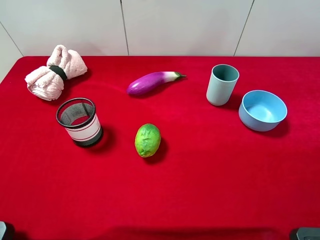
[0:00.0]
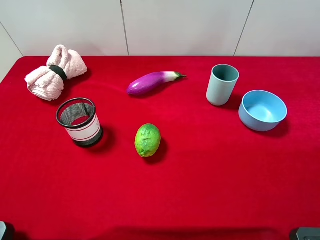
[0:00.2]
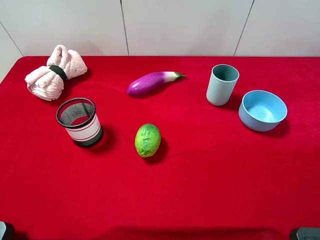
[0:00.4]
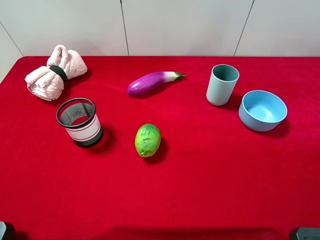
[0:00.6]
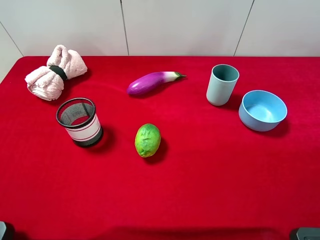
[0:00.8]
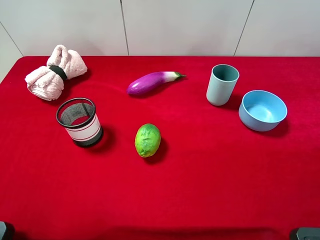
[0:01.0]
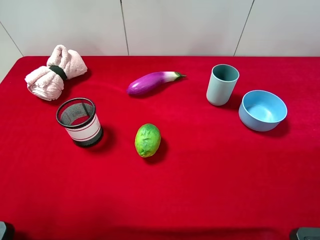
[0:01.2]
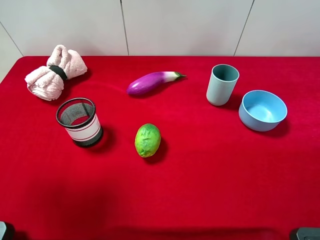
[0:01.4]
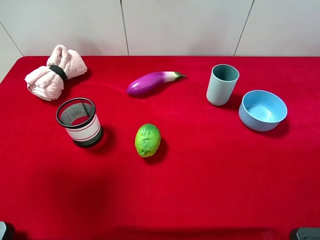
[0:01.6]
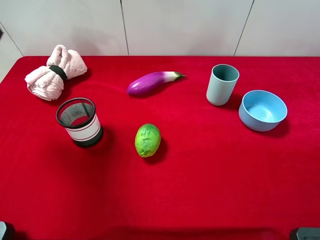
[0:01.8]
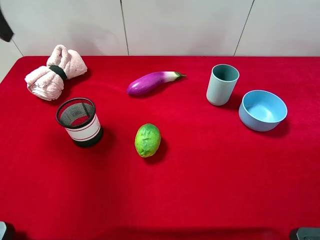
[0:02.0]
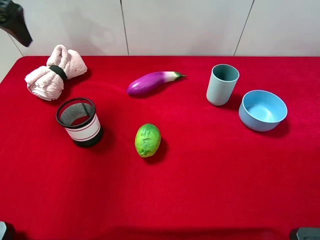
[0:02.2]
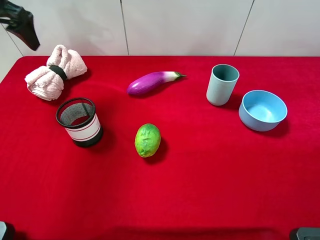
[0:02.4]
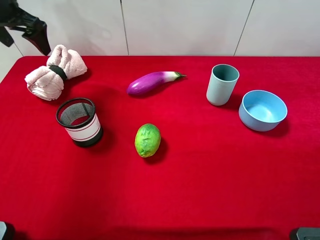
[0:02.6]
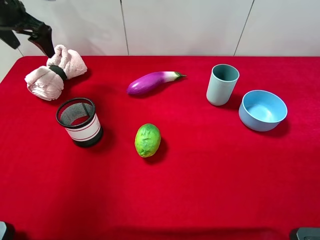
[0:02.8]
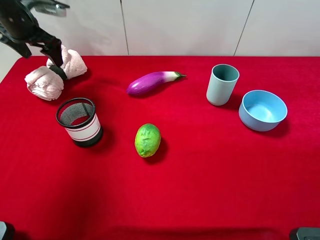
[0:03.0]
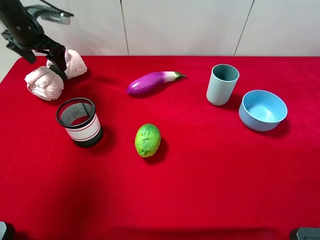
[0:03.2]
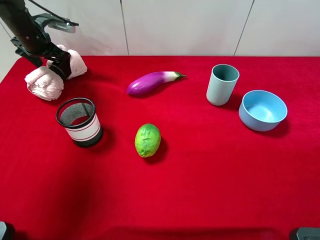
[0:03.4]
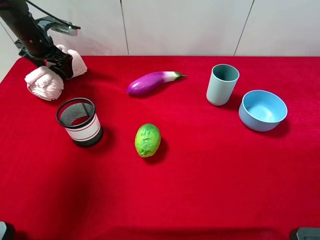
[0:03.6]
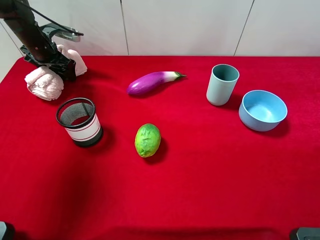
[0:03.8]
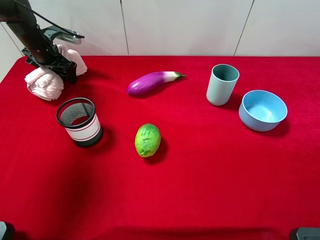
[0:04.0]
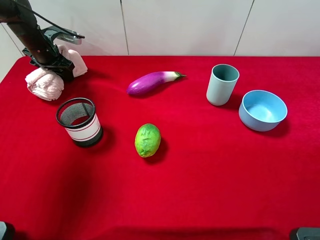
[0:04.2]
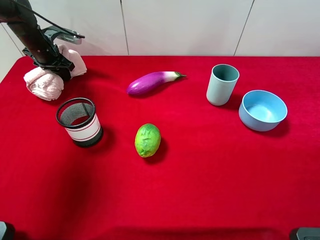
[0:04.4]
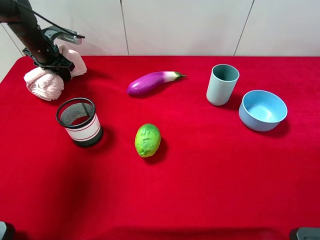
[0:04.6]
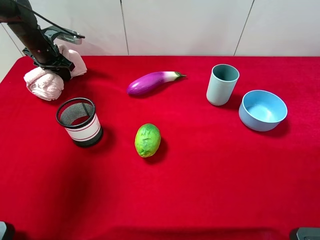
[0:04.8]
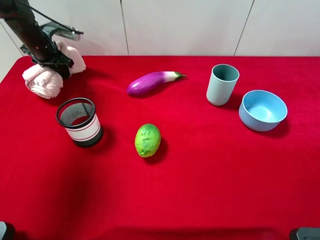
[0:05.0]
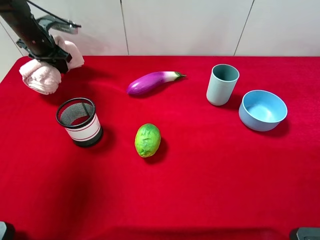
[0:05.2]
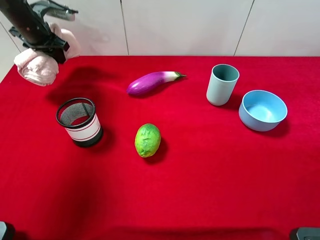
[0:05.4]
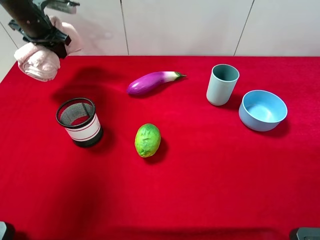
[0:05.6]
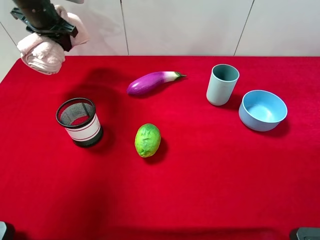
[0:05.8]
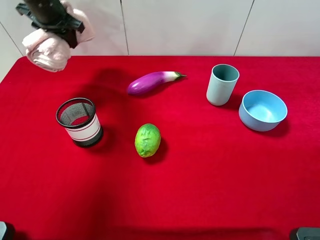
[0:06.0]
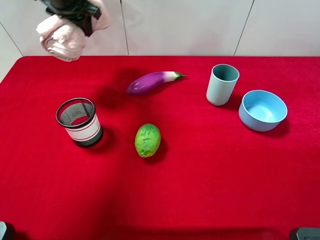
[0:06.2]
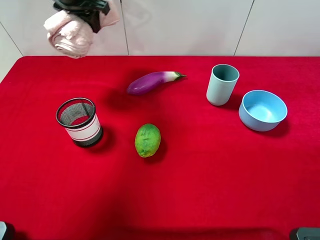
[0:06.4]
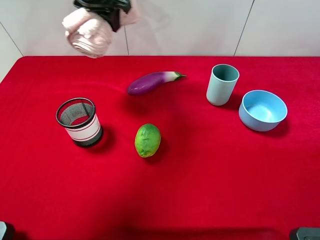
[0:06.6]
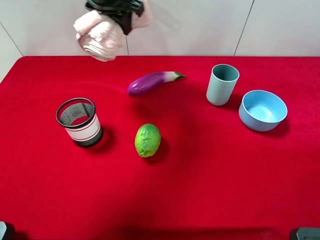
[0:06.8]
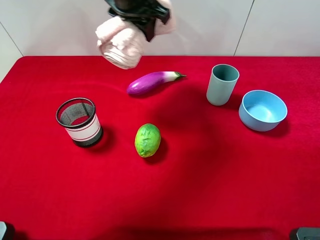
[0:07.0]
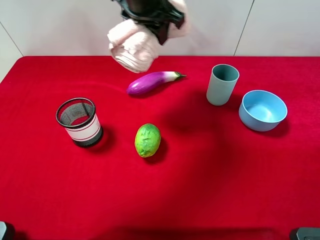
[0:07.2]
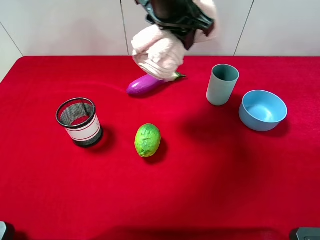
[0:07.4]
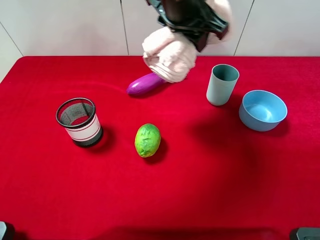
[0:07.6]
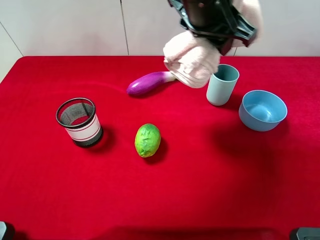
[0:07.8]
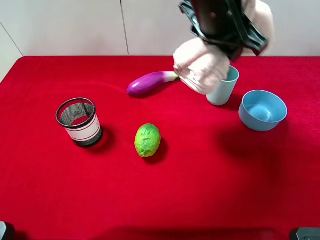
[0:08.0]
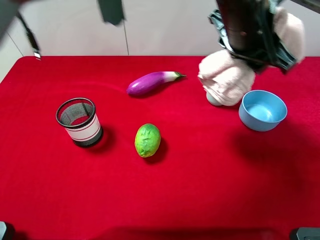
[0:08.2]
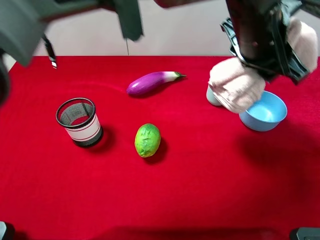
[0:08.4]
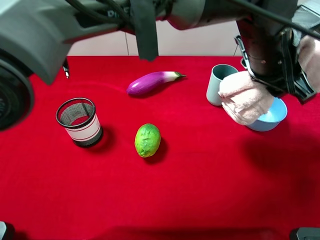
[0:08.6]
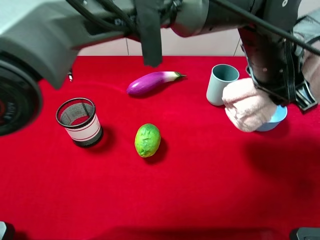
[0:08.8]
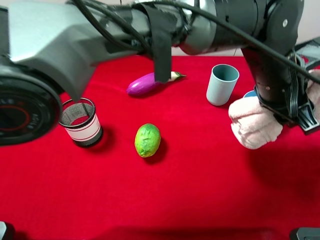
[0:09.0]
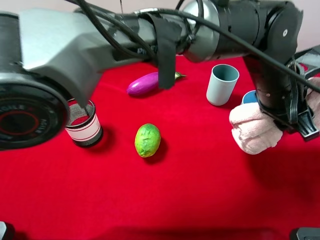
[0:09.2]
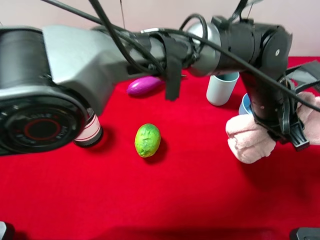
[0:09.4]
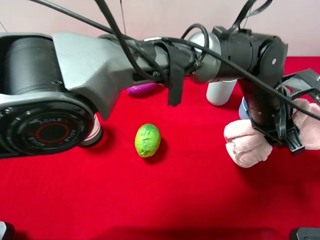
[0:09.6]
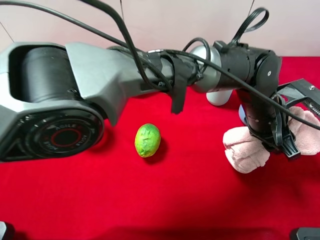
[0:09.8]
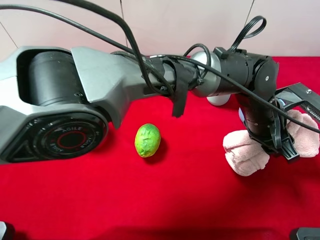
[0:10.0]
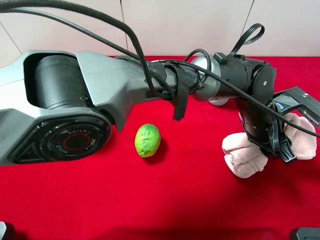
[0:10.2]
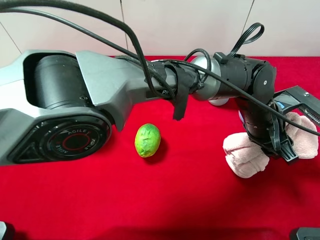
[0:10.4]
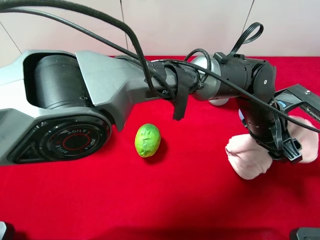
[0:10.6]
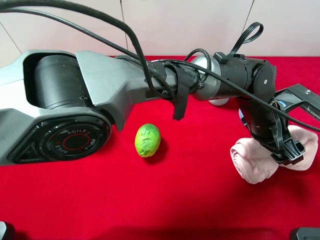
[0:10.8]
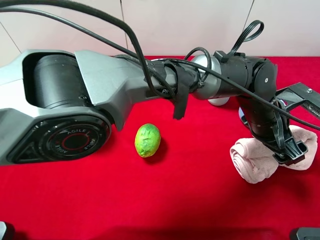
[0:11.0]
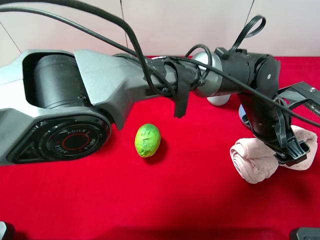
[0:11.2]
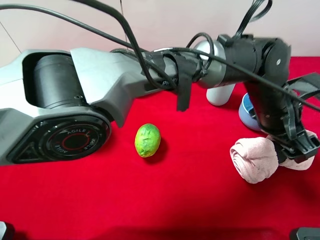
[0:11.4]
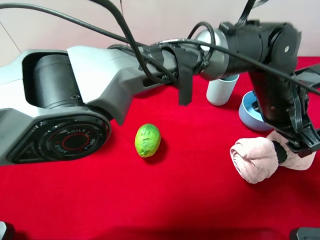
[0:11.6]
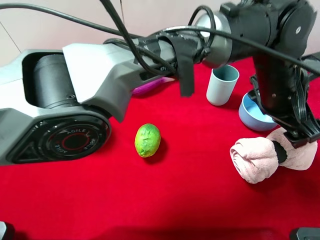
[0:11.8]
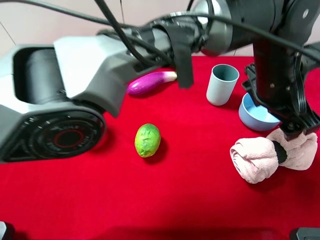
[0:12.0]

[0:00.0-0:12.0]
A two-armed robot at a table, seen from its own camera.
Task of the whole recording: the gripper move the object.
0:00.0 to 0:01.6: The left gripper travels forward and upward by approximately 25 cm.
0:01.6 to 0:03.0: The left gripper travels forward and downward by approximately 30 cm.
0:03.0 to 0:04.4: The left gripper is displaced downward by approximately 10 cm, and closes its fingers.
0:04.4 to 0:06.0: The left gripper shifts roughly 15 cm upward and to the right.
0:06.0 to 0:07.6: The left gripper goes some 30 cm to the right and backward.
0:07.6 to 0:09.0: The left gripper heads to the right, downward and backward, covering approximately 20 cm.
0:09.0 to 0:10.4: The left gripper travels downward by about 10 cm.
0:10.4 to 0:12.0: The left gripper goes some 10 cm upward, and opens.

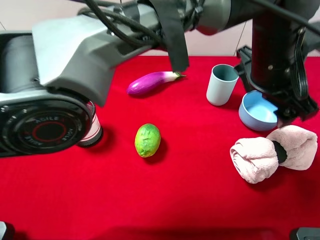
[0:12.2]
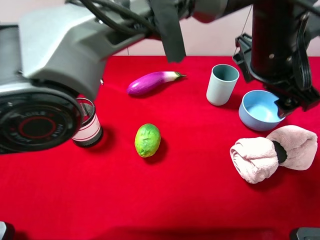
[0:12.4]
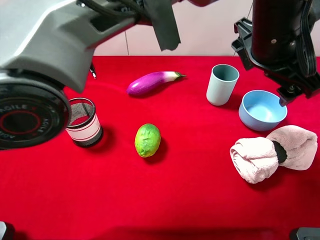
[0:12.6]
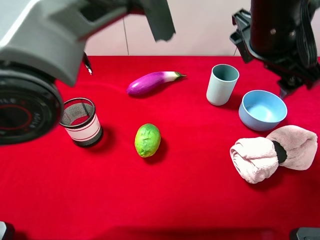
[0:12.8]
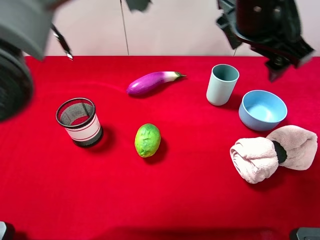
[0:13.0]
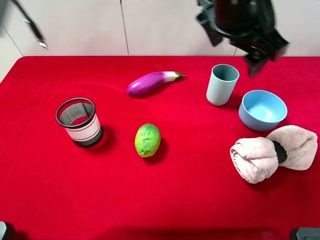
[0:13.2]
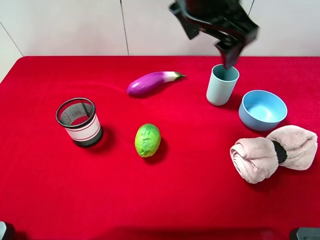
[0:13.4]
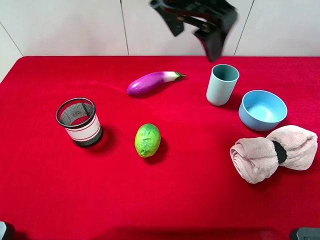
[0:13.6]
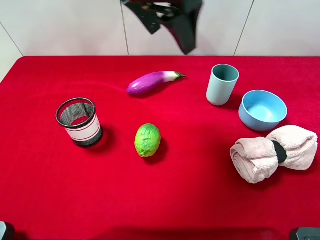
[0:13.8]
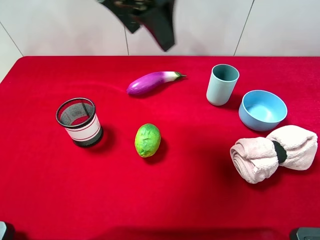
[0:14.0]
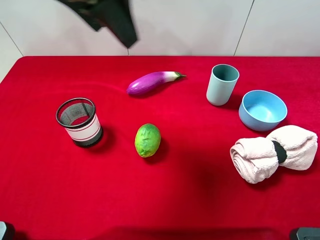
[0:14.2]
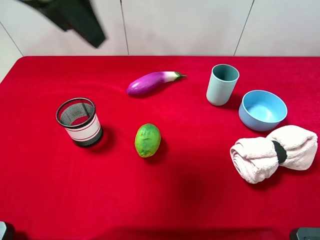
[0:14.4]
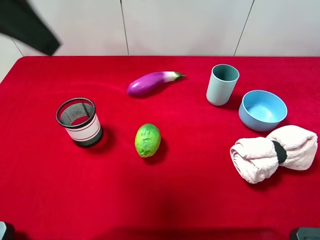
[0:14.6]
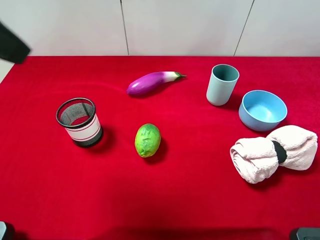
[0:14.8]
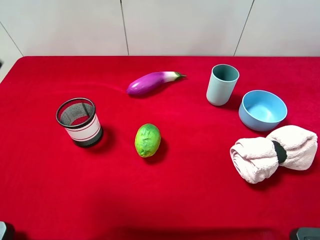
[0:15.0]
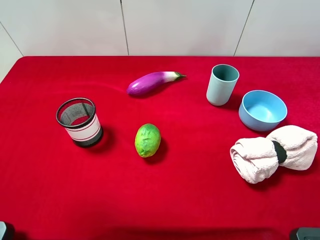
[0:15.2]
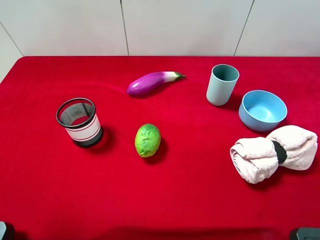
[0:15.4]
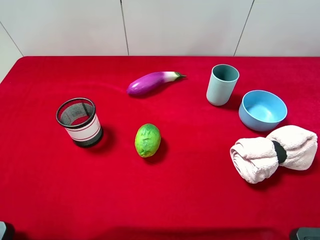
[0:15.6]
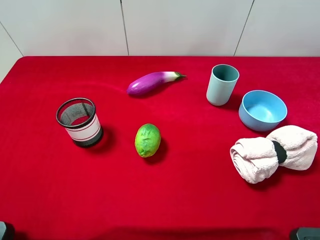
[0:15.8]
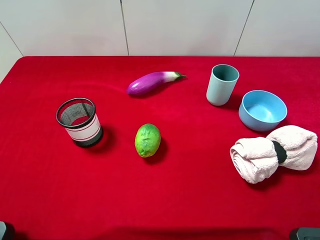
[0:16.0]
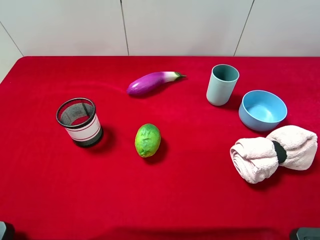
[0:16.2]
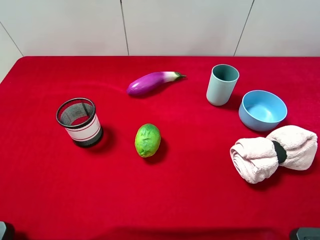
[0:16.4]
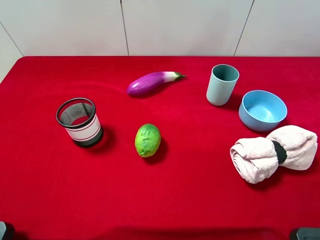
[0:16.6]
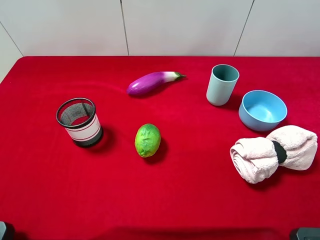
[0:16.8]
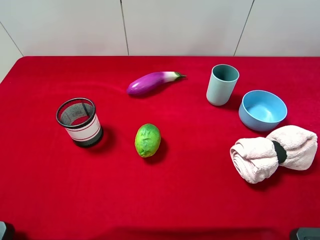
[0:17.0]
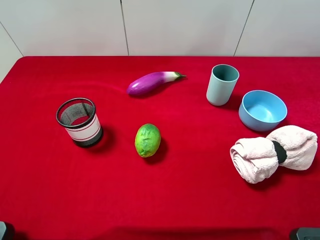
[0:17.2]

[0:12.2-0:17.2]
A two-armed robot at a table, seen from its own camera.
Task of the whole recording: the gripper move the object.
0:12.2 to 0:13.8: The left gripper shifts approximately 25 cm to the left and upward.
0:13.8 to 0:15.6: The left gripper moves to the left and backward, about 35 cm.

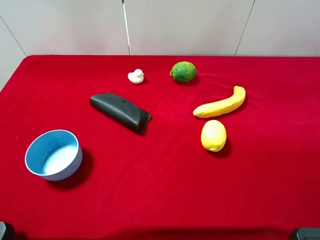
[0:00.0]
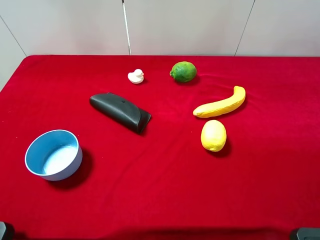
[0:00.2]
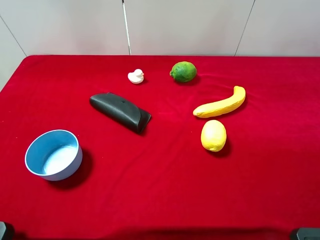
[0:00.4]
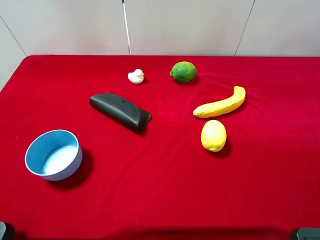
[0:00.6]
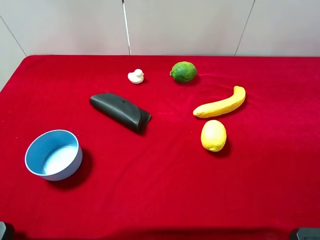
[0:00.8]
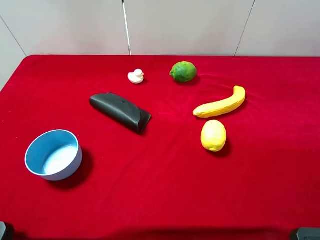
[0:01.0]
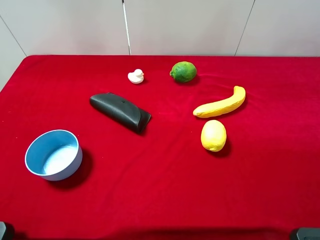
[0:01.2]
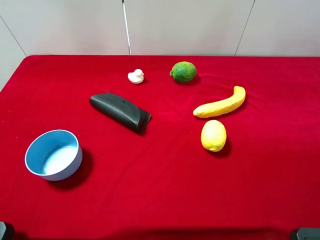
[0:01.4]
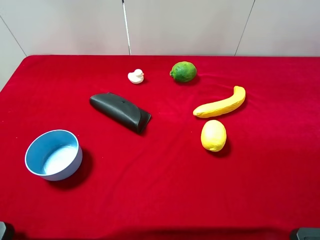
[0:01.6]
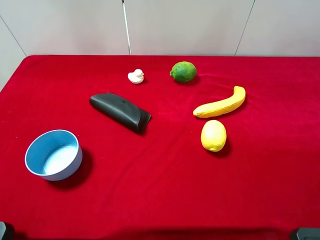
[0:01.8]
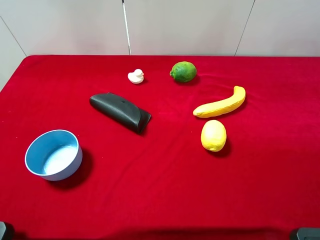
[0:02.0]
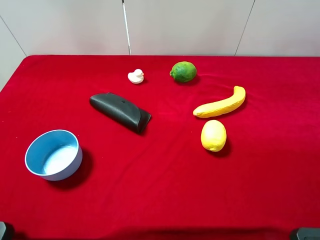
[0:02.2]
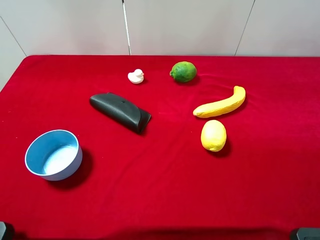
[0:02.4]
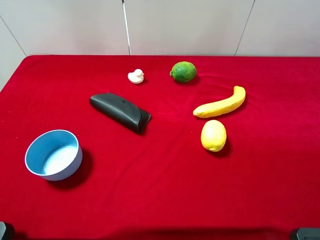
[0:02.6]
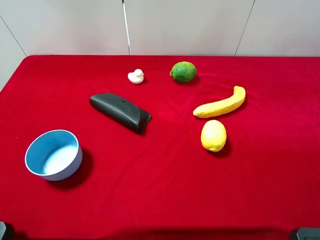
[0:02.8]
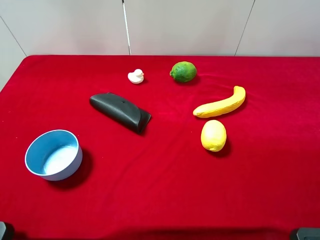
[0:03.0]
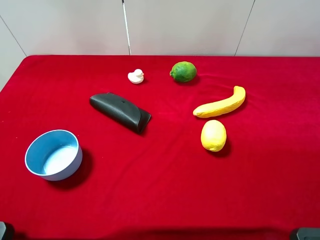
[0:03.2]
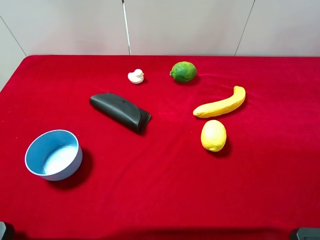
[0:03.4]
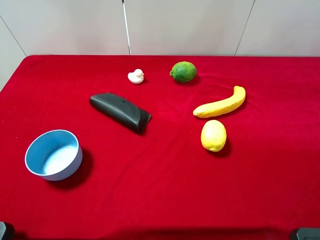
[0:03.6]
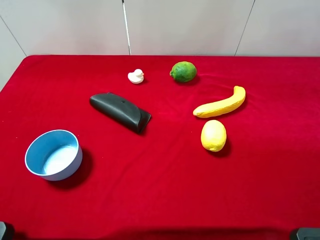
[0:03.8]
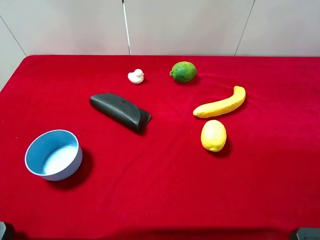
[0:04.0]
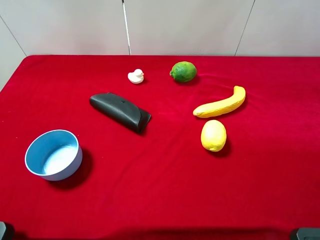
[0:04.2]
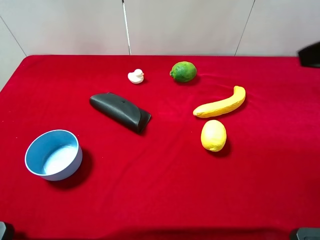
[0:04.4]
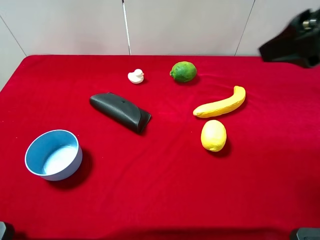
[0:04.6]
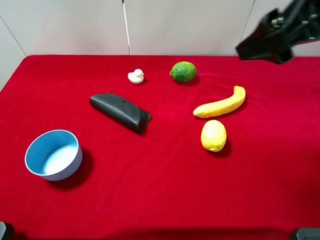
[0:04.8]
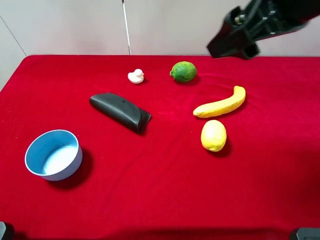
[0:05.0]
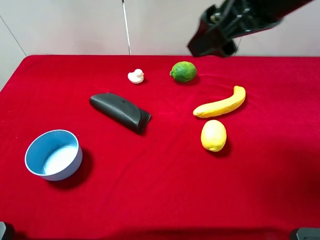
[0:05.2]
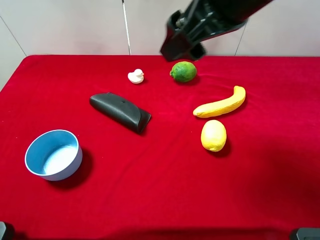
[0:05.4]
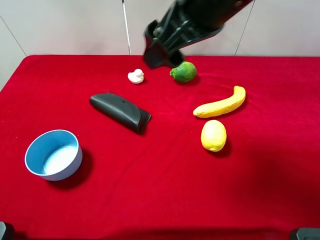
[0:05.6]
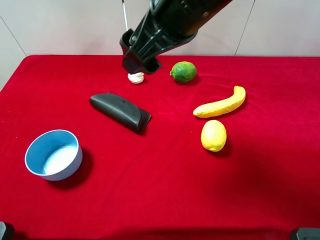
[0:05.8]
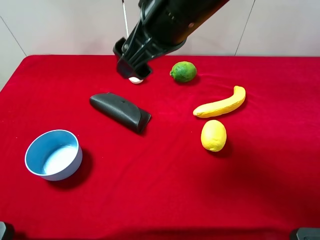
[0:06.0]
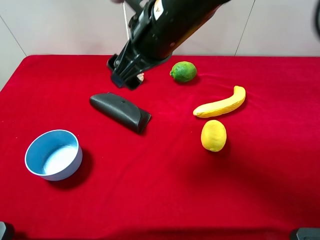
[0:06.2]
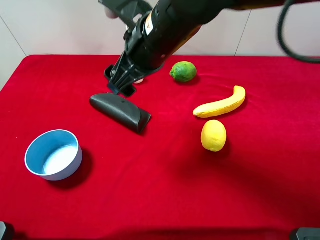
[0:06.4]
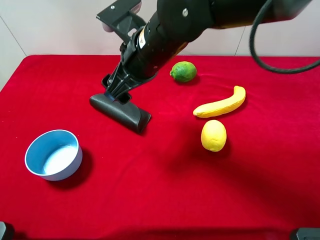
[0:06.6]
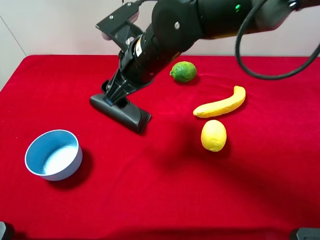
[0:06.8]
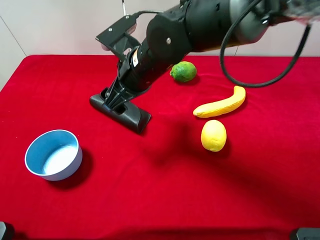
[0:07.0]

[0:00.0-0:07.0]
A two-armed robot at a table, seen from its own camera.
Task of the whole recording: the gripper move the object.
0:00.0 to 0:02.8: Neither gripper changes place.
0:04.2 to 0:05.6: The right gripper heads to the left, covering about 20 cm.
0:05.6 to 0:07.0: The right gripper goes roughly 15 cm downward and to the left.
